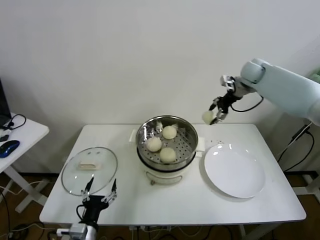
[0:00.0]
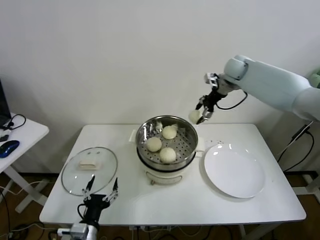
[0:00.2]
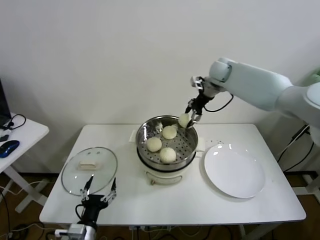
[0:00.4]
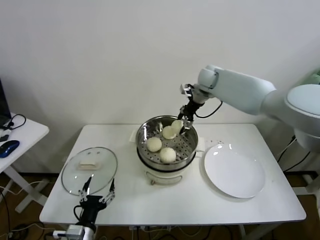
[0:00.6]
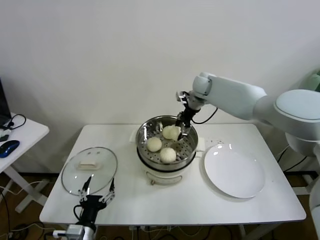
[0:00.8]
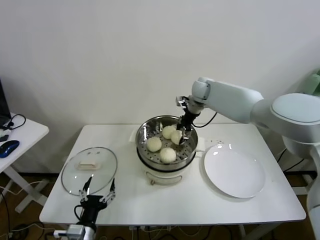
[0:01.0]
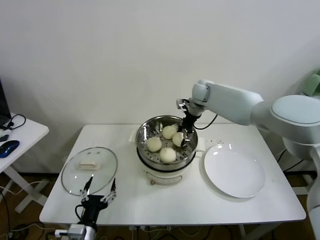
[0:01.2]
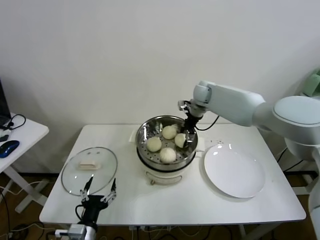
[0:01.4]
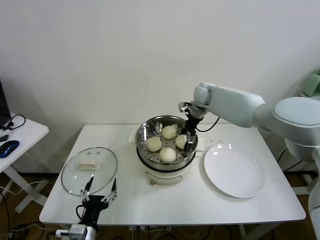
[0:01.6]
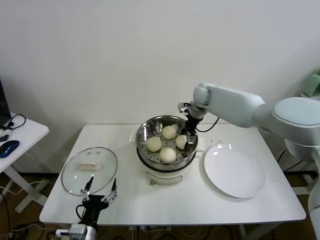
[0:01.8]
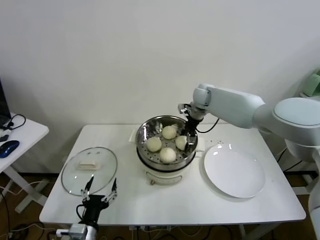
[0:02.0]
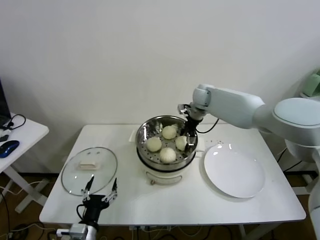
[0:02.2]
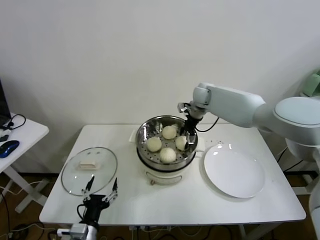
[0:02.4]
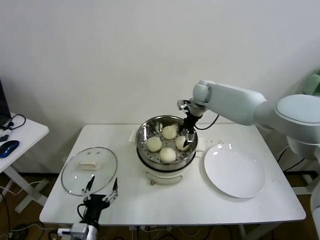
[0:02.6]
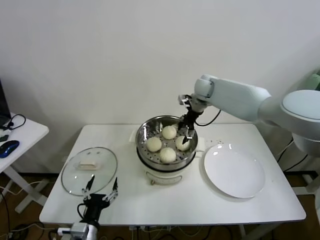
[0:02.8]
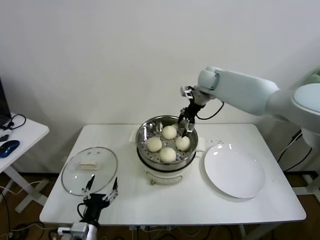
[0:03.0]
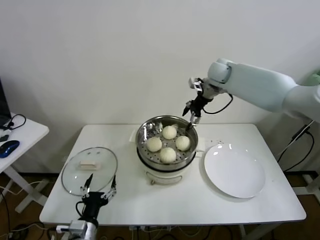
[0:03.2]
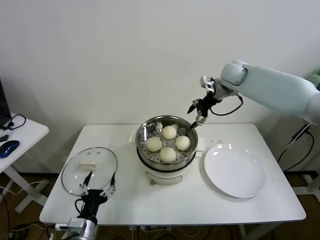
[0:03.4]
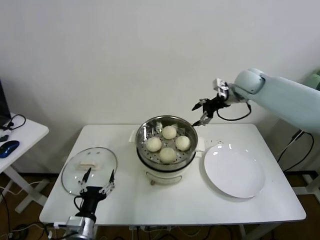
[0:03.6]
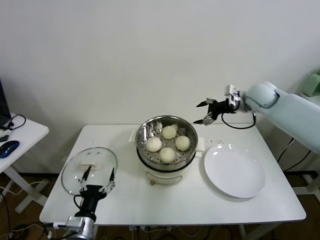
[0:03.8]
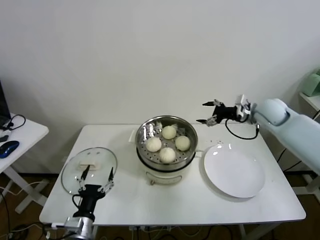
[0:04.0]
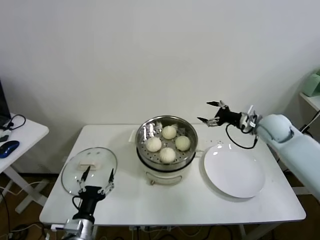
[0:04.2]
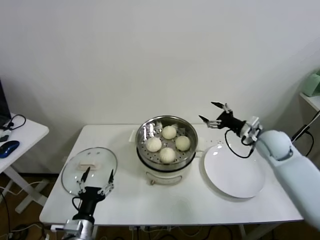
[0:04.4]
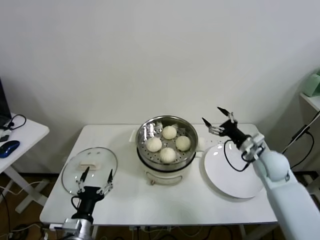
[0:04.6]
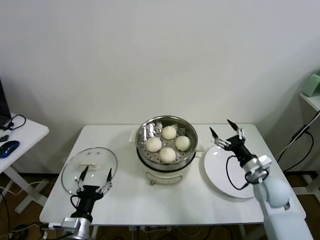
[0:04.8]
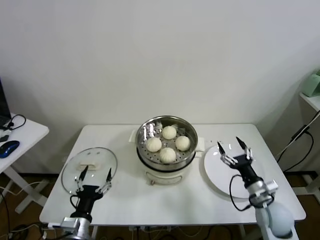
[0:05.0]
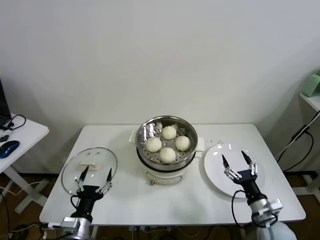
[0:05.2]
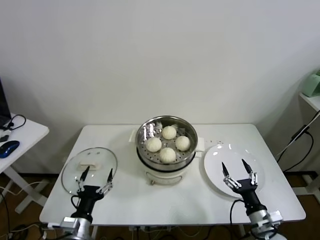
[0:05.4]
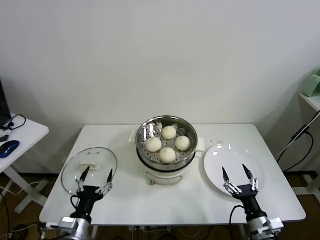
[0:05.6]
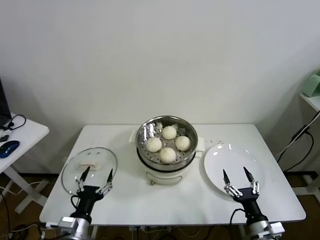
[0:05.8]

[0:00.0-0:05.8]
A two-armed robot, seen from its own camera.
Task of the whole recording: take steamed baozi put them in steamer.
Step, 0:00.0 to 0:02.4: Place the baozi on the steamer with right gripper.
0:00.0 to 0:01.4: The right gripper travels to the left and downward by approximately 20 cm.
0:01.4 to 0:02.8: The right gripper opens up.
0:02.8 to 0:04.4: The right gripper heads to the right, backward and downward, covering some 30 cm.
0:04.4 to 0:05.8: The right gripper heads backward and downward, covering approximately 35 cm.
